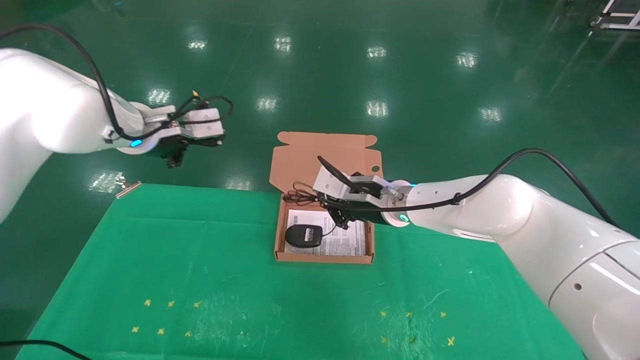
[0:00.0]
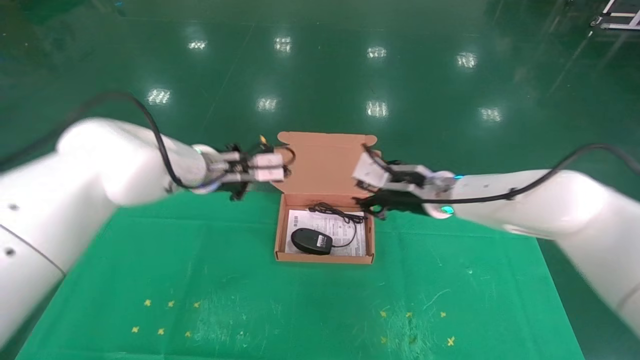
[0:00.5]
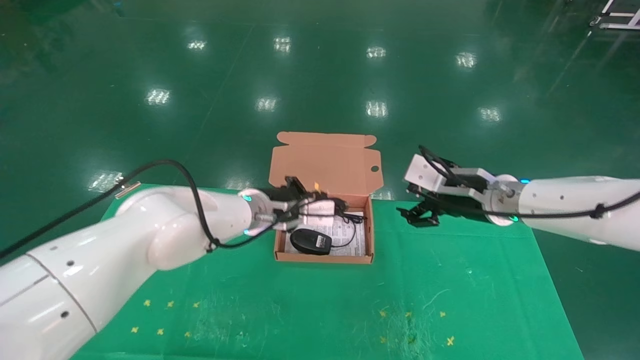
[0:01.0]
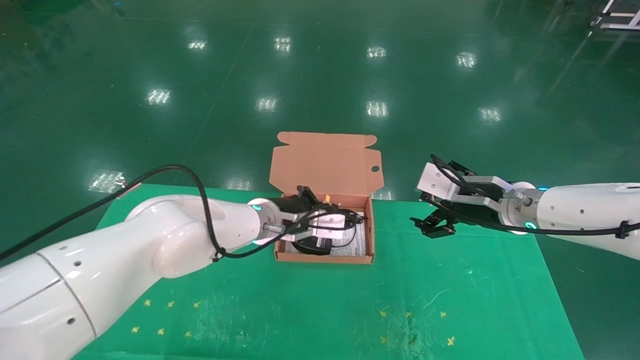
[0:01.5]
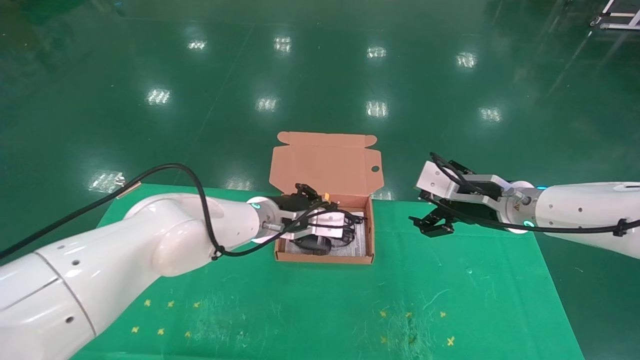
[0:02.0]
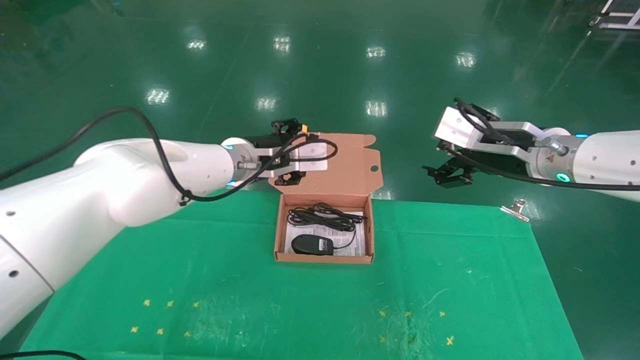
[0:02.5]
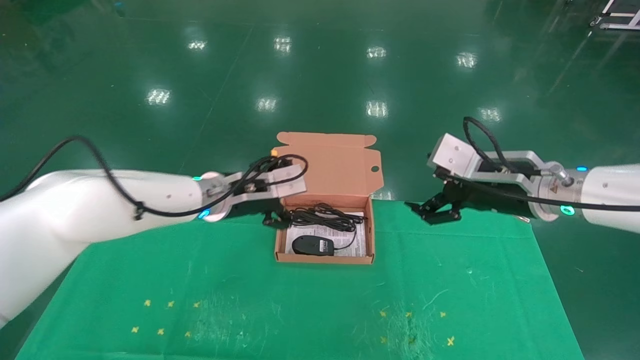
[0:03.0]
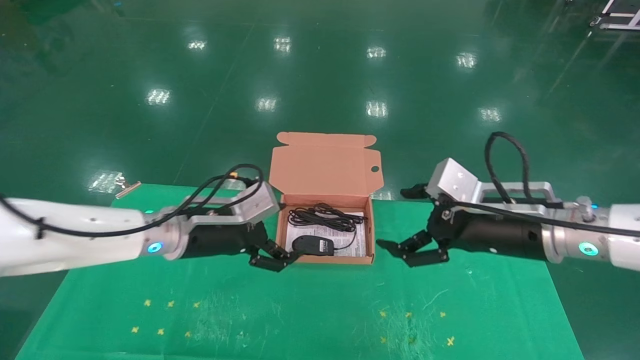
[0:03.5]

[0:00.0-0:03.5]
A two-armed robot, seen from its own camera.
Task of the whole recording: grasp data cable left put into box grasp mouse right put into box.
0:00.0 to 0:02.0: The right gripper travels to the right by roughly 15 cm, and opens, while the left gripper moves to the right and downward, about 20 cm.
0:02.0 to 0:03.5: The left gripper goes about 15 cm to the left and backward, and opens up, while the right gripper goes approximately 10 cm backward.

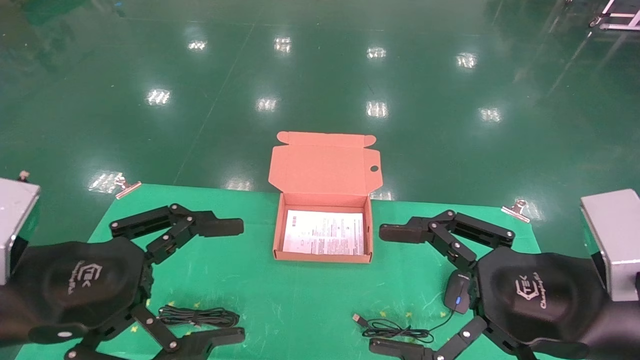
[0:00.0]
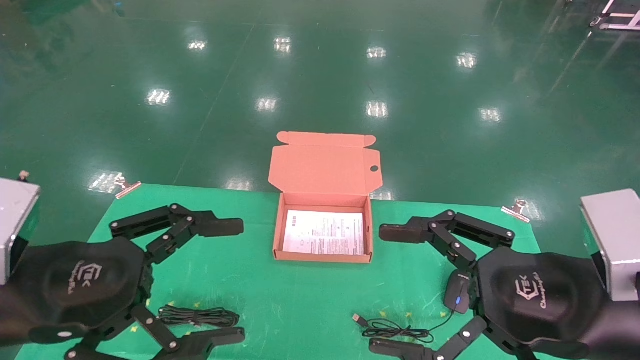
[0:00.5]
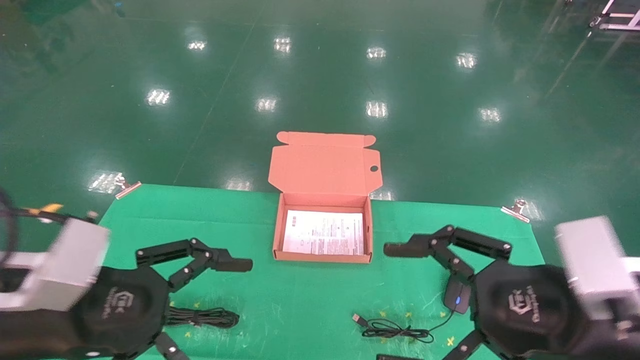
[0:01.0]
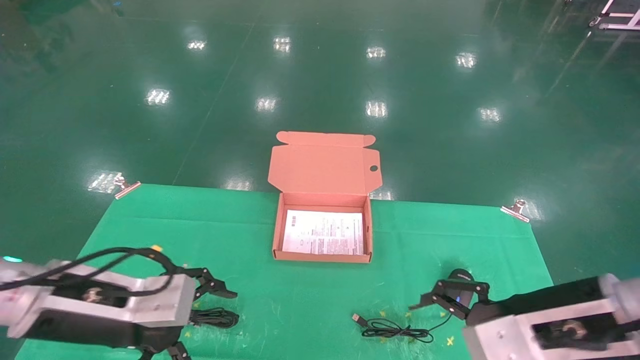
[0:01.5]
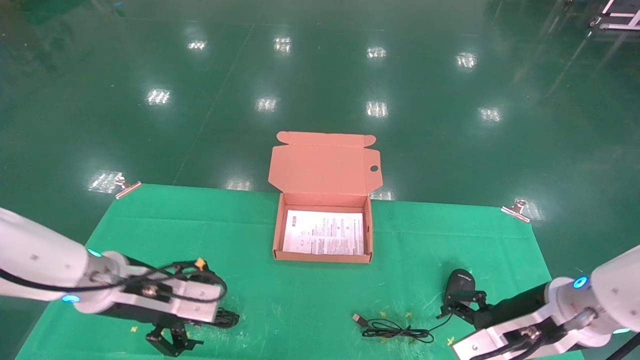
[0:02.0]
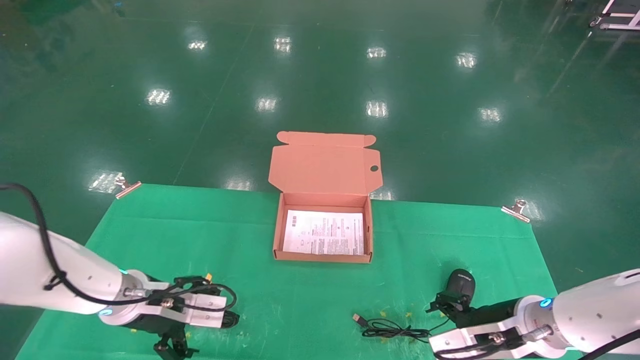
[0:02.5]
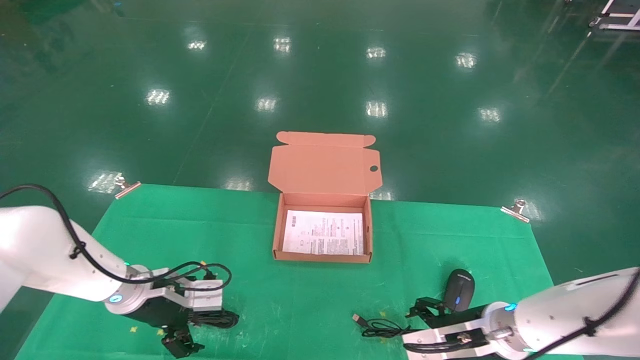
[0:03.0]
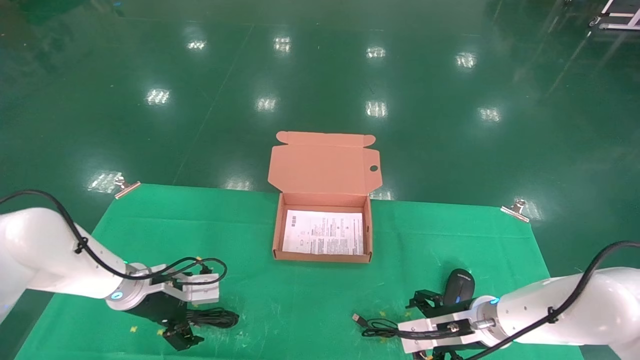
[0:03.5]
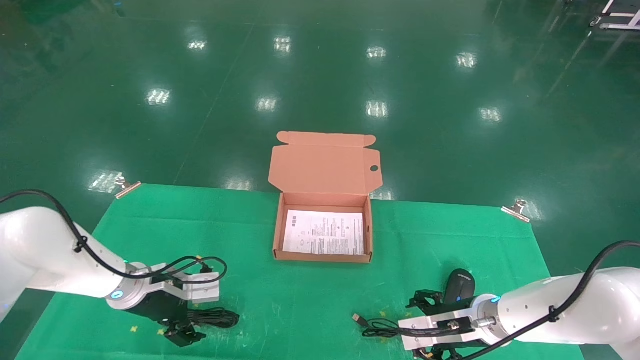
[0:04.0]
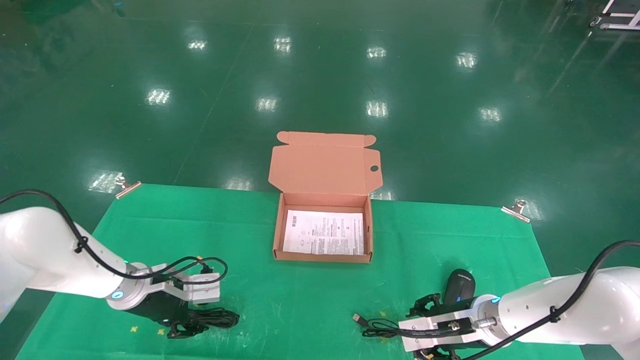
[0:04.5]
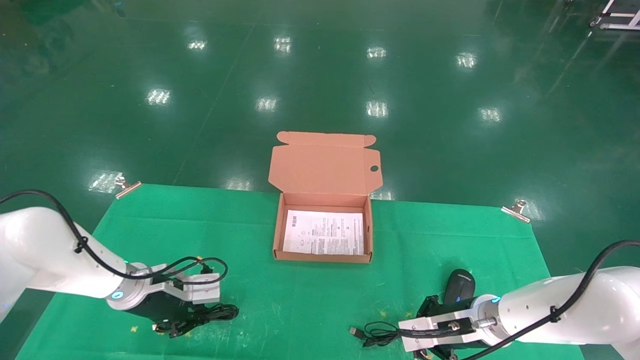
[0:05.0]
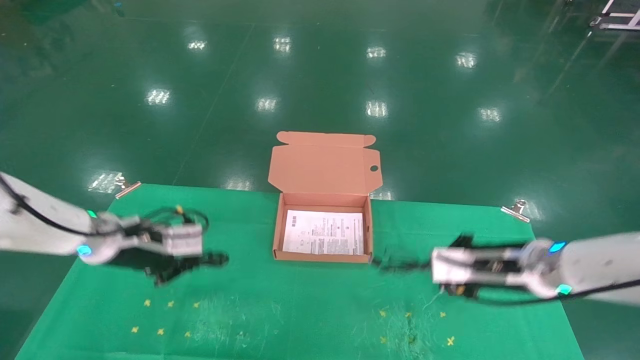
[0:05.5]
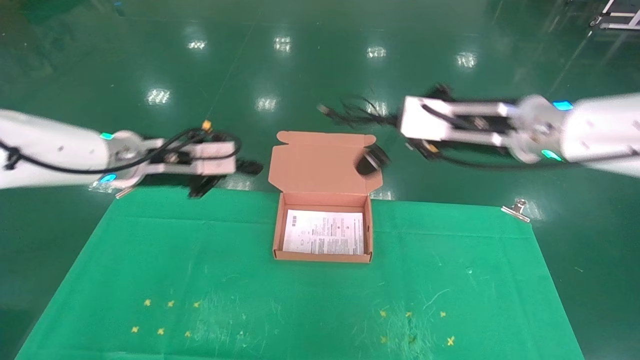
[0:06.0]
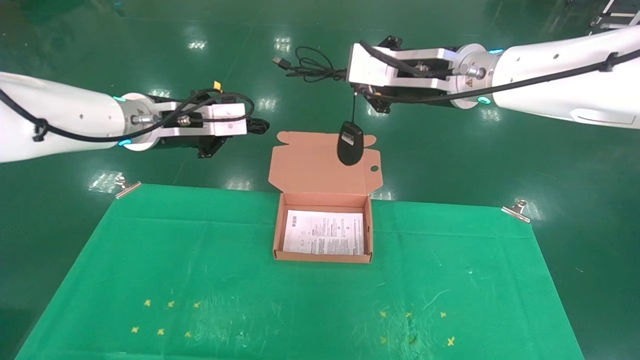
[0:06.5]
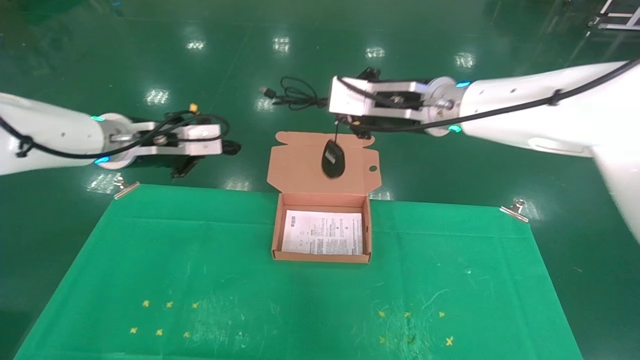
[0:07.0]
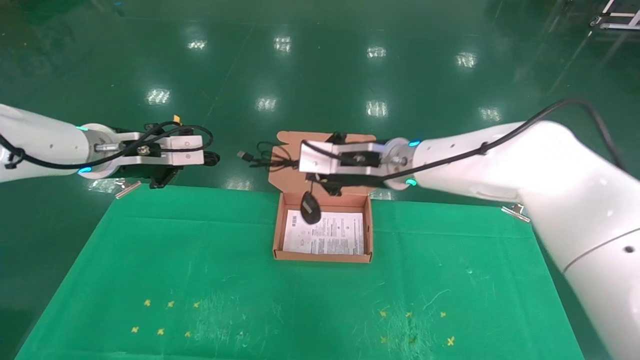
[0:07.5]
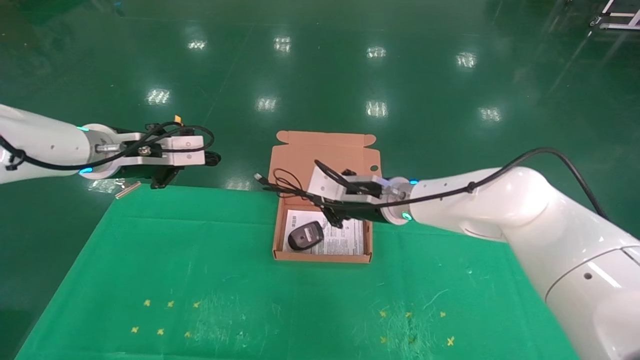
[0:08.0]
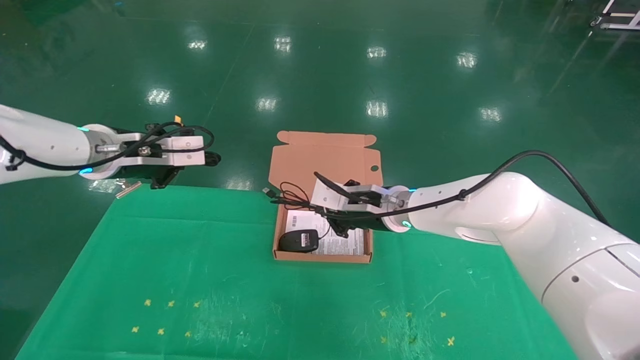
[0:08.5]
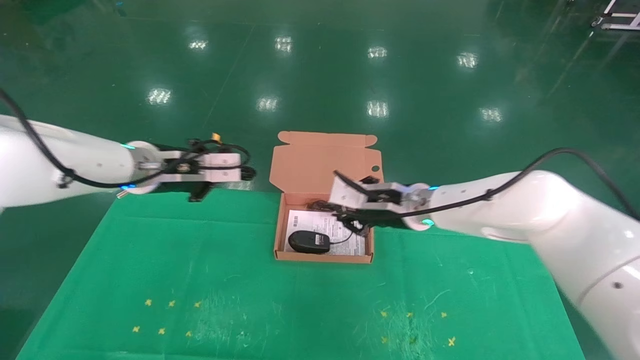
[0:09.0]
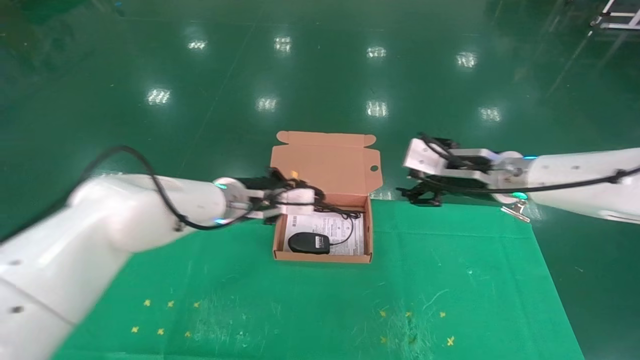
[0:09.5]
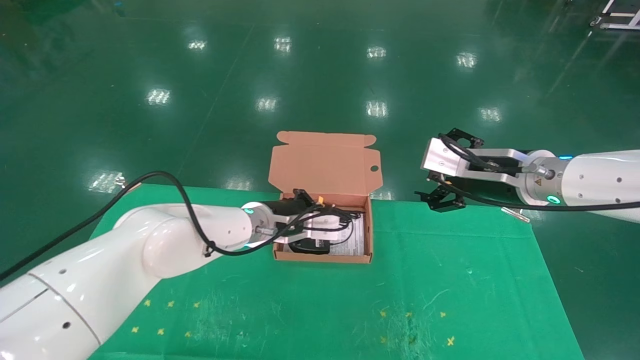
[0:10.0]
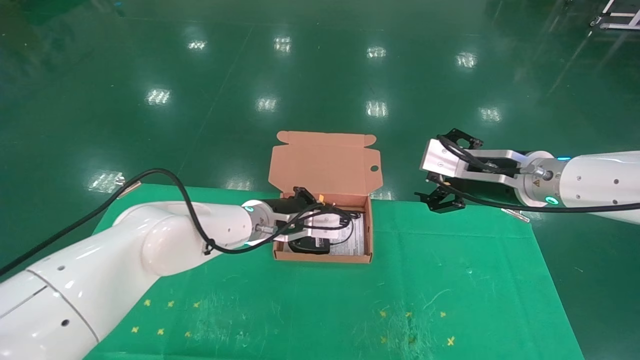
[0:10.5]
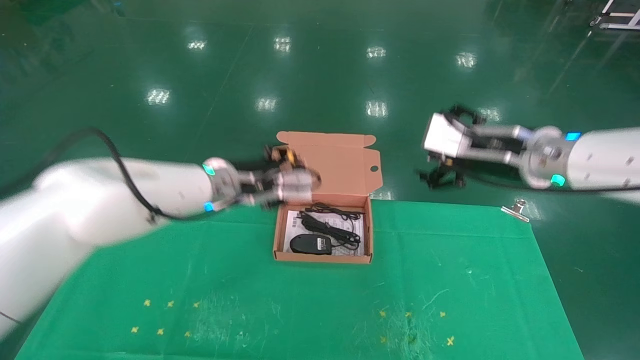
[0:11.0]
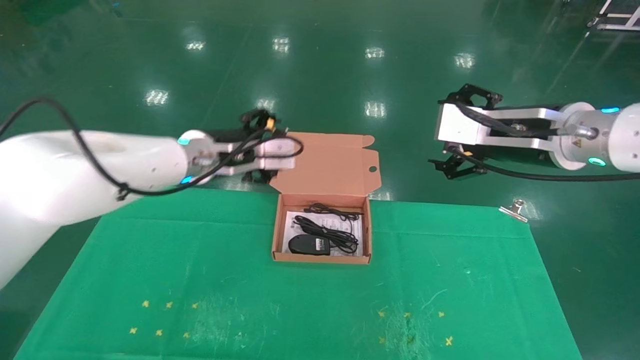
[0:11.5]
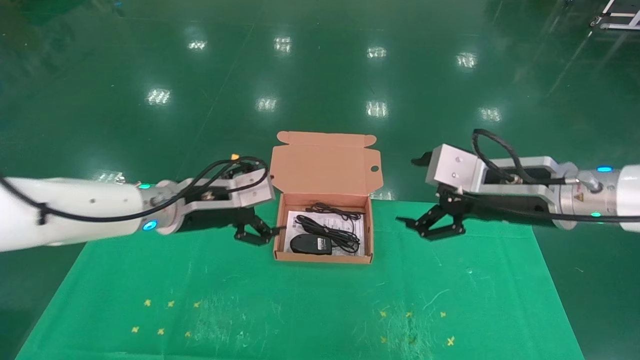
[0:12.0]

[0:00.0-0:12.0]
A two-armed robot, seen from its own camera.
Task of the whole recording: grasp data cable left put into box grasp mouse right put into box.
Step, 0:01.0 to 0:05.5: Grab and pick up both the mouse and power cord from the accessory packaging area at the same time.
Step, 0:06.0 to 0:11.0: Place the mouse and power cord into the box.
0:00.0 to 0:02.0: Both grippers travel together forward and downward, some 15 cm.
0:02.0 to 0:04.0: The right gripper moves downward and forward, roughly 15 cm. Meanwhile the left gripper is displaced forward and downward by approximately 10 cm.
0:04.0 to 0:06.0: The grippers both shift upward by roughly 25 cm. The left gripper closes. Meanwhile the right gripper closes its fingers.
0:06.0 to 0:08.0: The right gripper is displaced downward, to the left and forward by about 20 cm.
0:08.0 to 0:10.0: The right gripper moves to the right and backward, roughly 20 cm, and opens. The left gripper moves to the right and downward, some 25 cm.
0:10.0 to 0:12.0: The right gripper goes about 5 cm backward. The left gripper travels to the left, backward and upward by about 15 cm, and opens.
